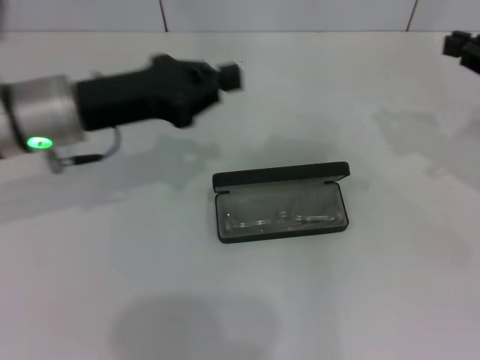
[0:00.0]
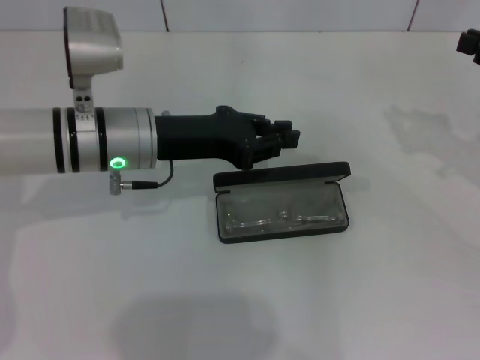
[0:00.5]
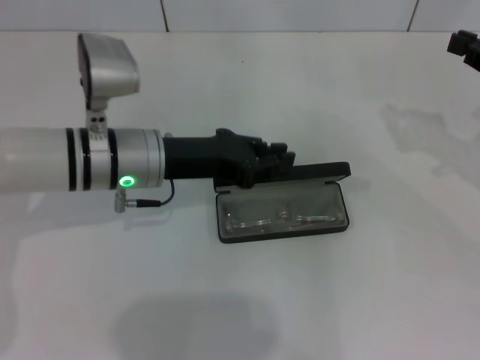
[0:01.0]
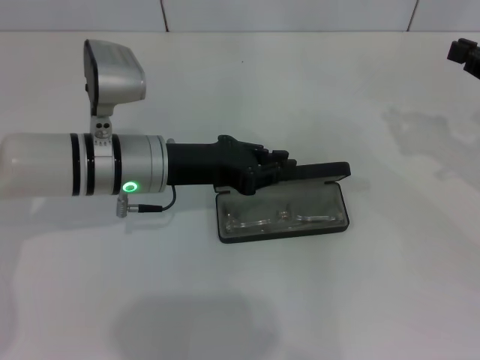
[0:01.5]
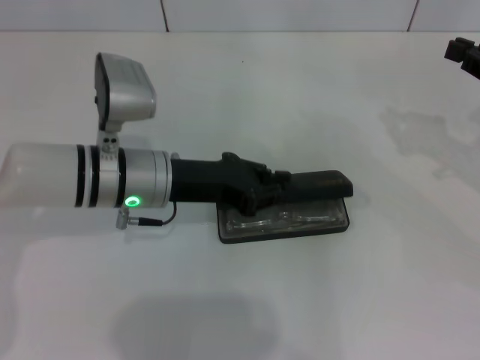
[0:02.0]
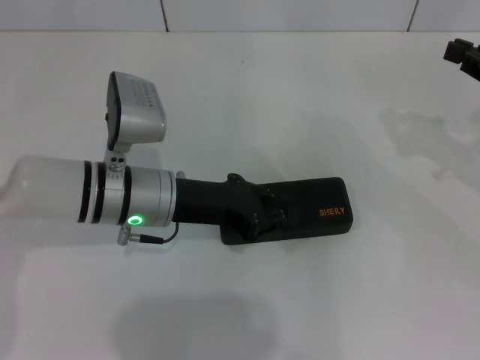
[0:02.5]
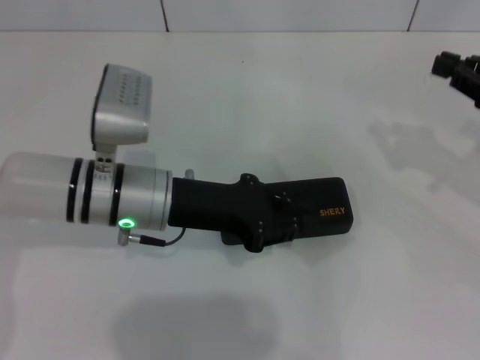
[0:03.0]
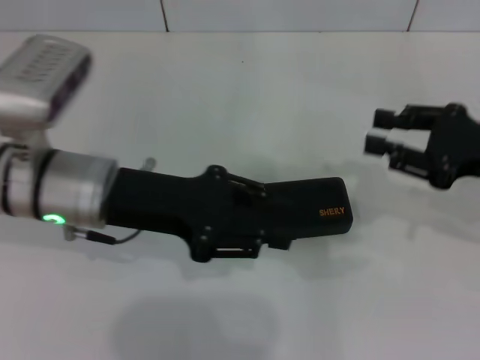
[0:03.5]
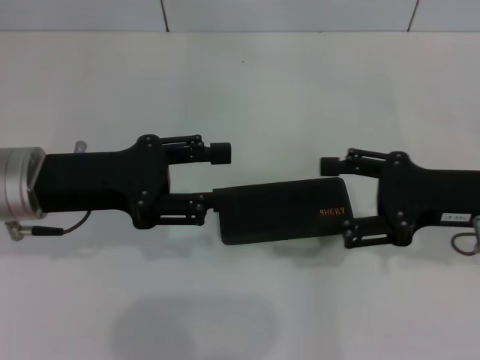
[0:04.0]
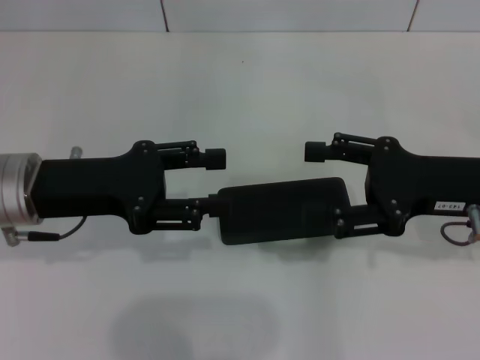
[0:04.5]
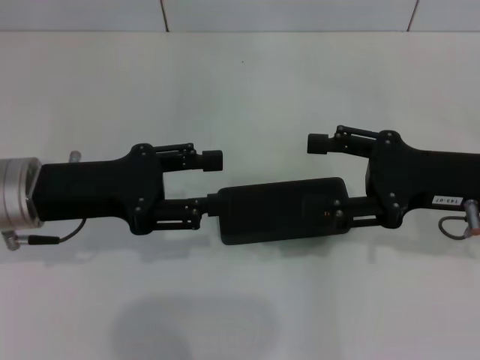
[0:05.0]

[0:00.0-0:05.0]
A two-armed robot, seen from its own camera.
Step, 0:00.0 to 0:03.0: Close the glasses case with your left hand.
0:00.0 to 0:02.5: The left gripper moves downward and to the right, roughly 10 cm.
0:02.5 to 0:05.0: The left gripper heads to the left and upward, covering approximately 10 cm, and opens its fingers, while the right gripper travels to the left by roughly 10 cm, and opens.

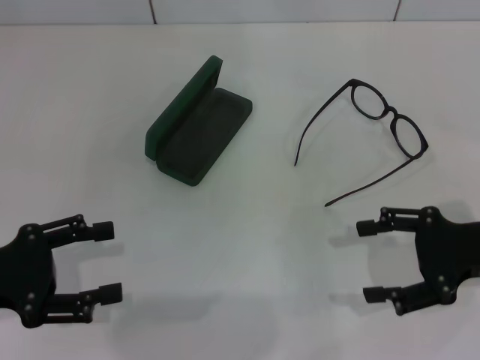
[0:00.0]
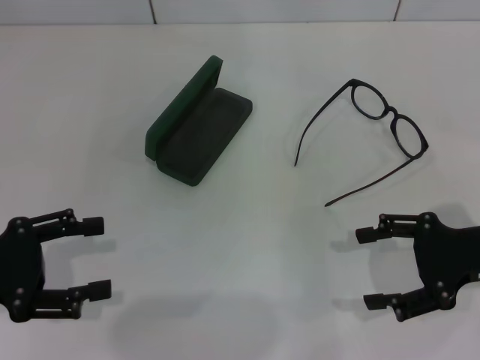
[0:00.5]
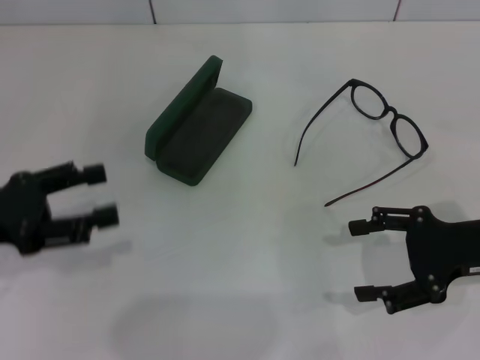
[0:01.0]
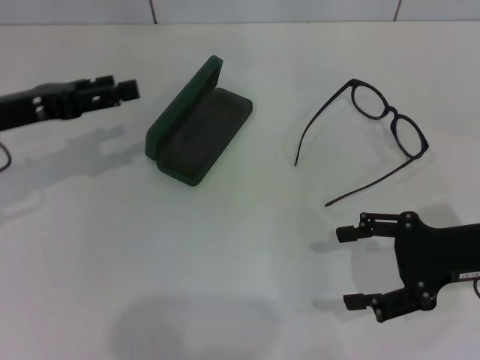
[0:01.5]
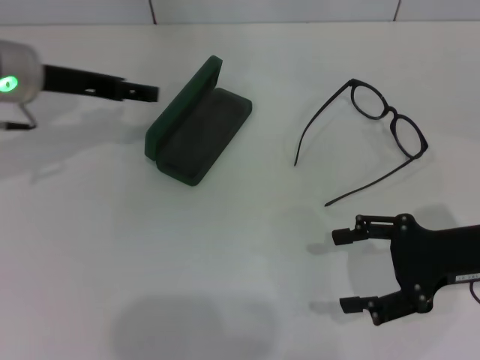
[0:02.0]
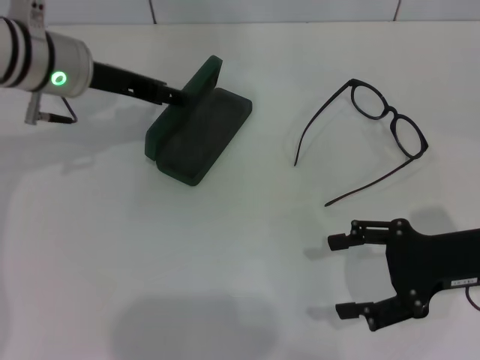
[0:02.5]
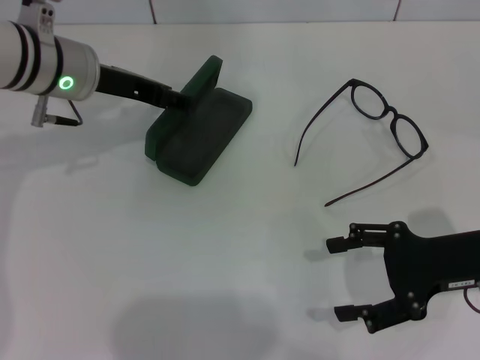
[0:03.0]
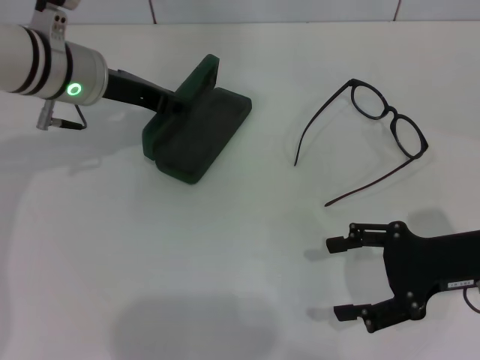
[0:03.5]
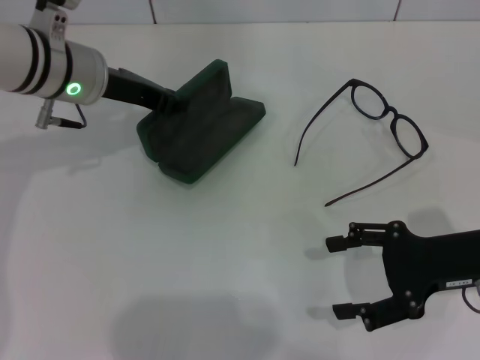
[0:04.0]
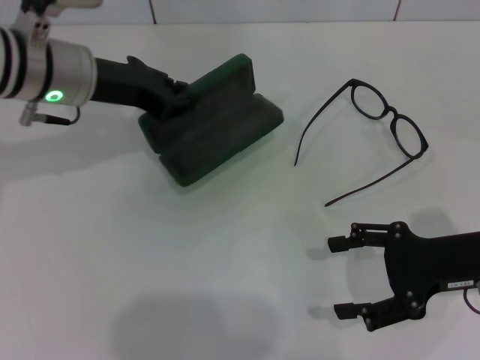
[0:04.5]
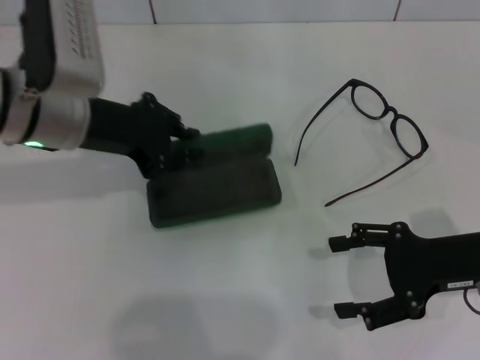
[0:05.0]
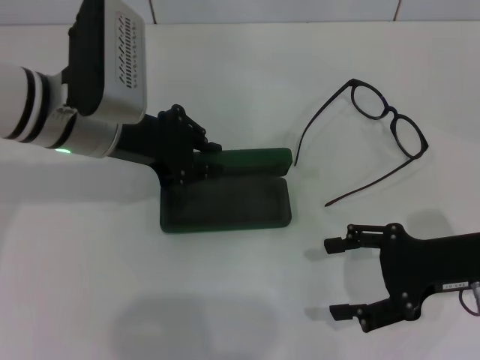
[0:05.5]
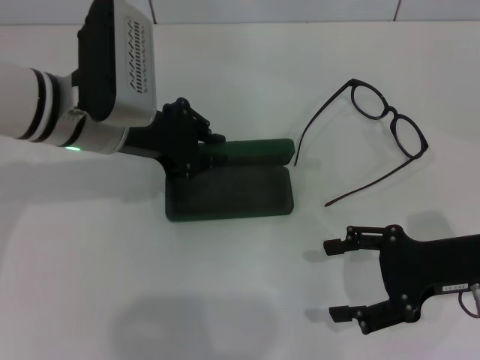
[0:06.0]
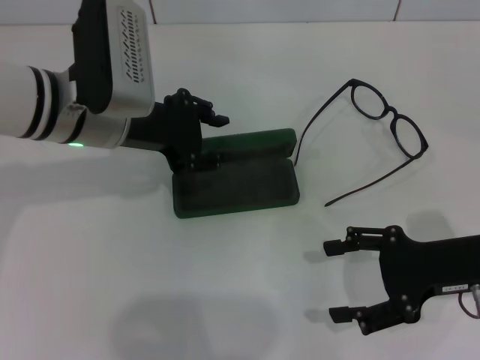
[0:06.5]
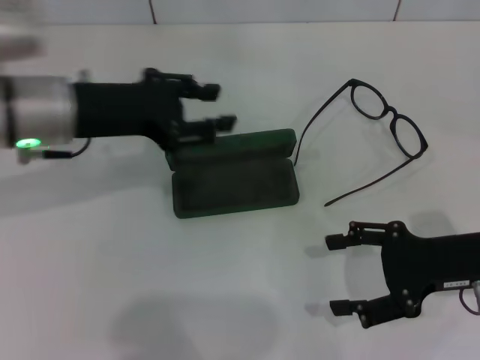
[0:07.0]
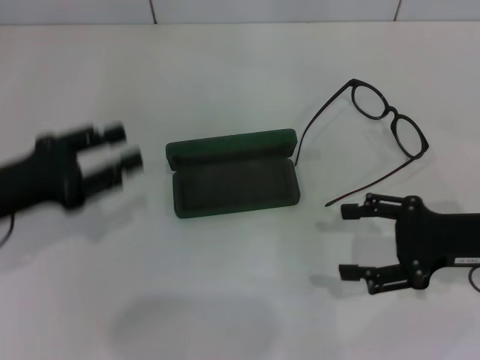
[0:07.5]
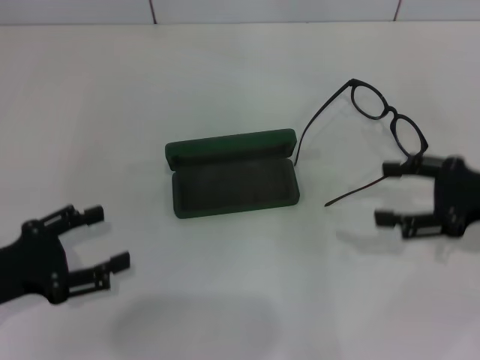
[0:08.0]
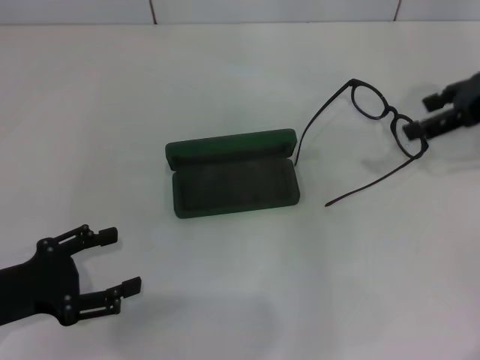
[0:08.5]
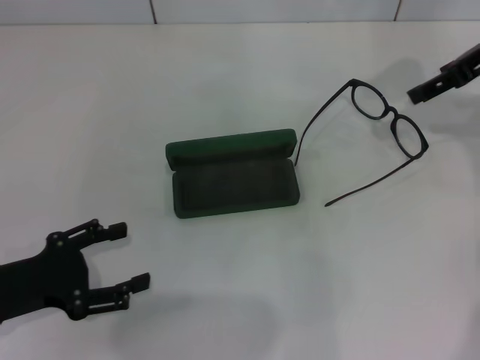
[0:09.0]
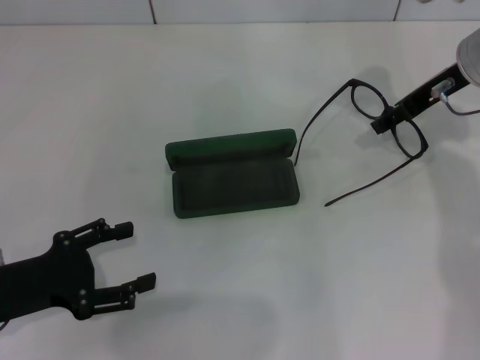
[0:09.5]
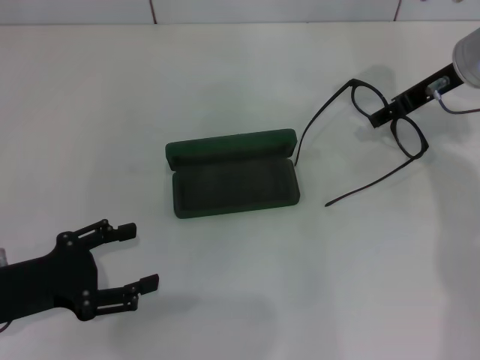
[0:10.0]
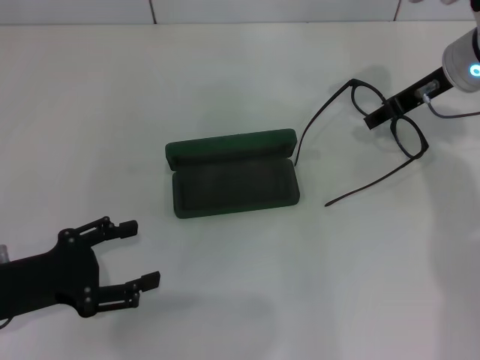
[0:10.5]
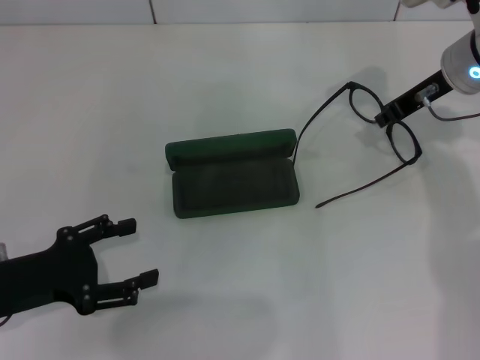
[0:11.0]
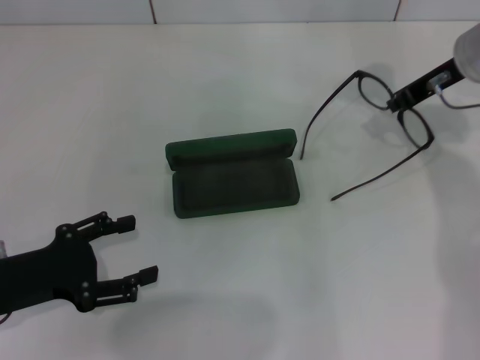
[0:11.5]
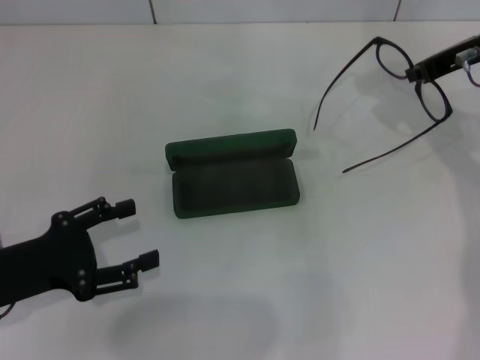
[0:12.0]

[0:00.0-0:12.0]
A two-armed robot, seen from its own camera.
Step, 0:00.0 to 0:03.5: Grab the glasses case with your left hand.
Step, 0:04.0 to 0:06.0: Place the glasses case in the center of the table with your left hand.
Step, 0:06.5 to 0:11.0: Grab the eyeglass frame with your right hand.
0:00.0 to 0:02.0: The left gripper is displaced forward and to the right by approximately 20 cm.
0:02.0 to 0:04.0: The left gripper is displaced to the right by approximately 5 cm, and closes up.
0:04.0 to 0:06.0: The left gripper shifts roughly 5 cm backward.
0:06.0 to 0:08.0: The left gripper is displaced backward, to the left and downward by roughly 25 cm, and opens. Meanwhile the right gripper moves roughly 5 cm.
0:08.0 to 0:10.0: The right gripper travels forward, to the left and upward by about 20 cm.
0:10.0 to 0:12.0: The right gripper closes.

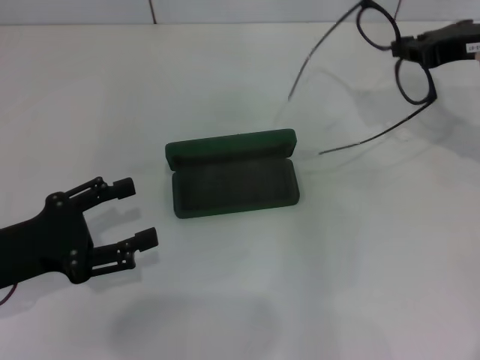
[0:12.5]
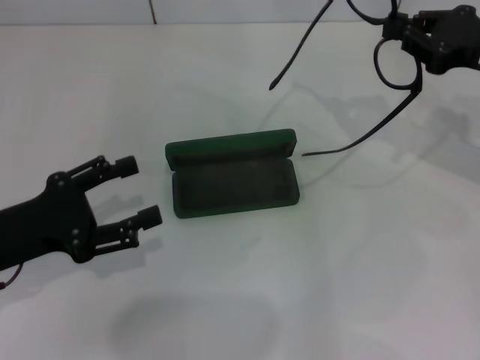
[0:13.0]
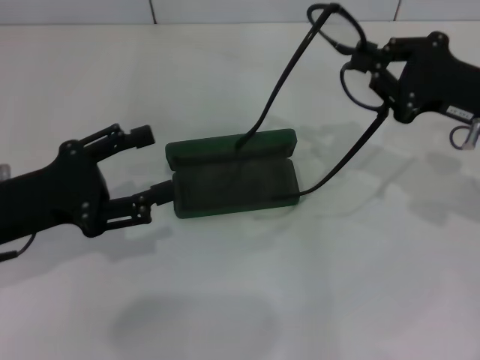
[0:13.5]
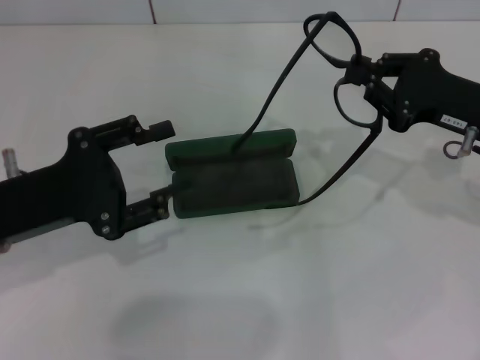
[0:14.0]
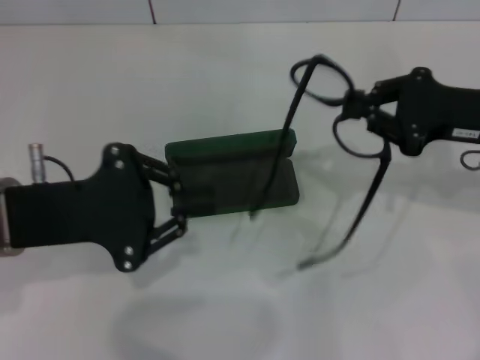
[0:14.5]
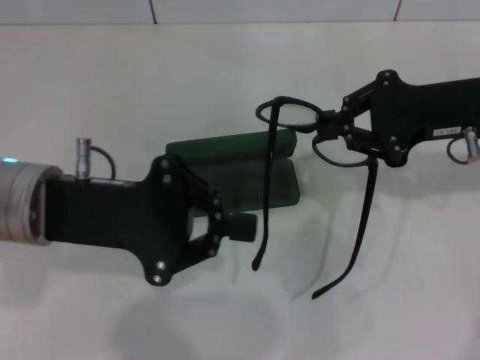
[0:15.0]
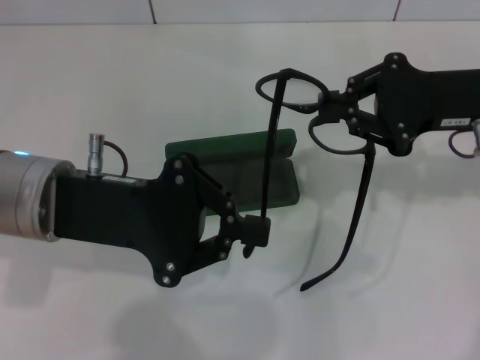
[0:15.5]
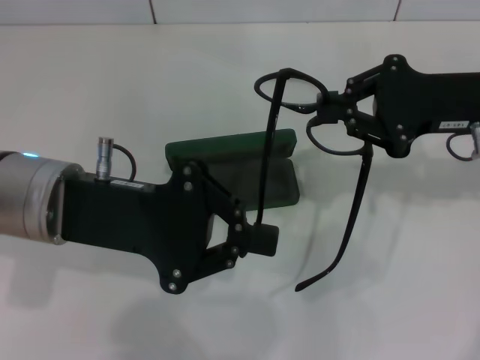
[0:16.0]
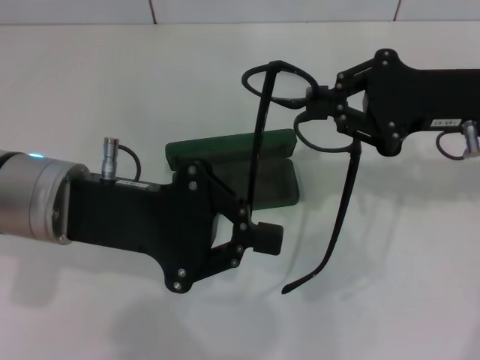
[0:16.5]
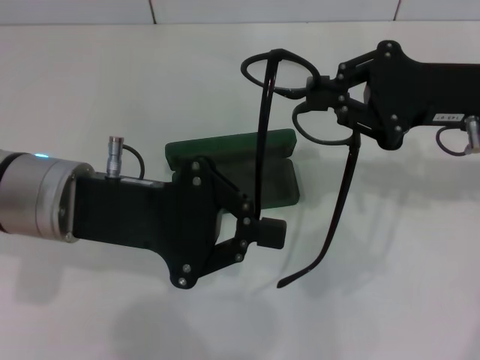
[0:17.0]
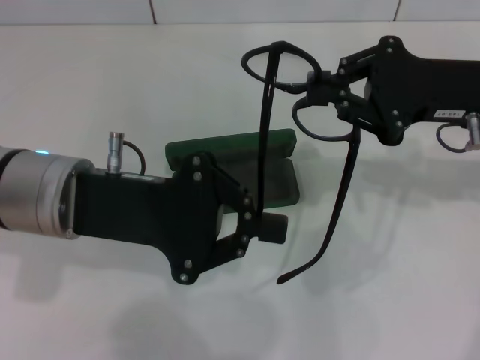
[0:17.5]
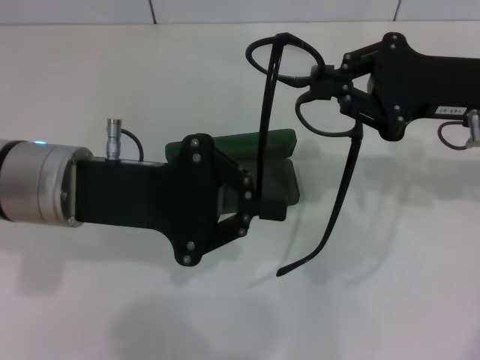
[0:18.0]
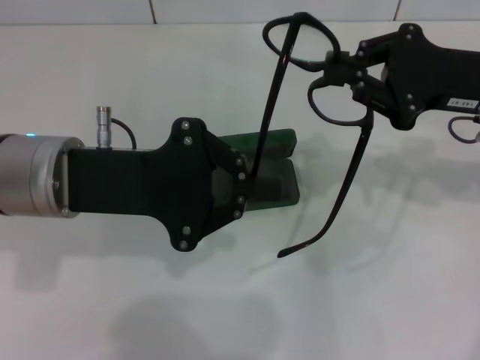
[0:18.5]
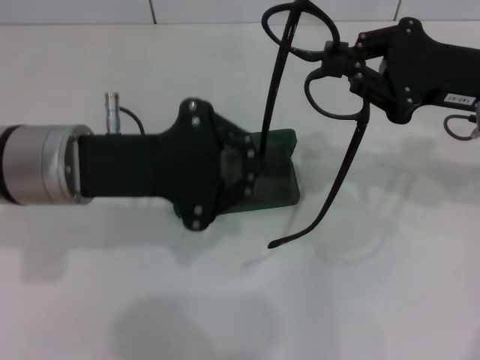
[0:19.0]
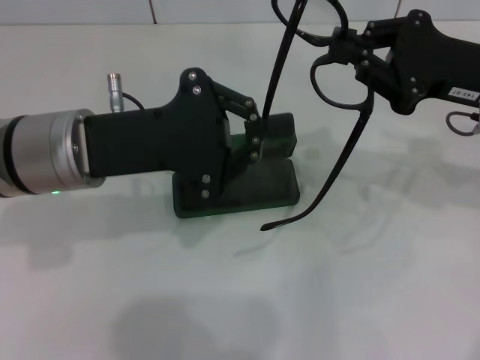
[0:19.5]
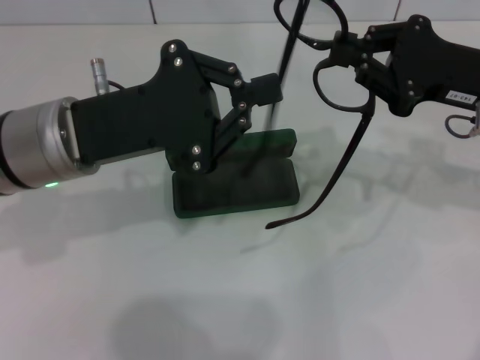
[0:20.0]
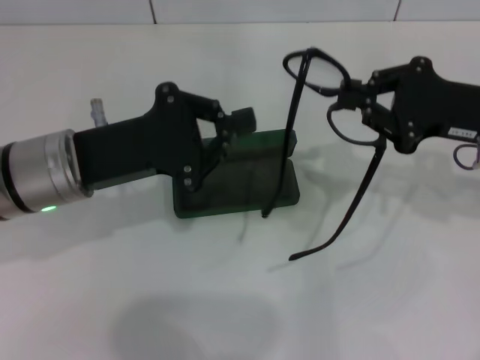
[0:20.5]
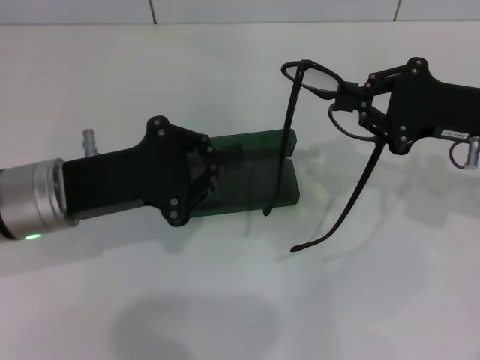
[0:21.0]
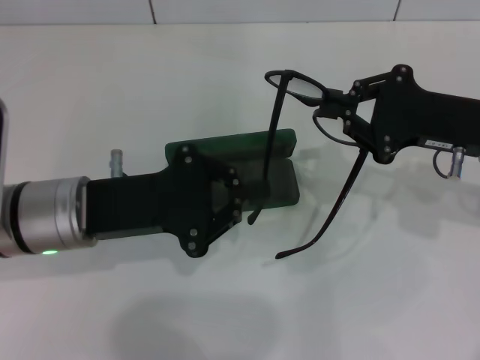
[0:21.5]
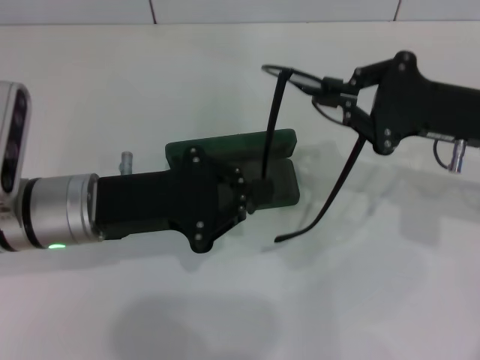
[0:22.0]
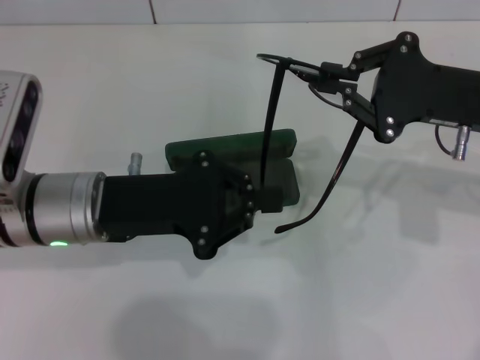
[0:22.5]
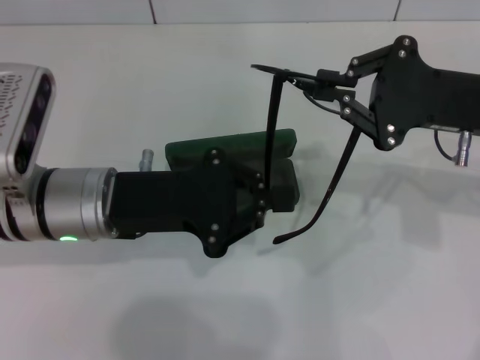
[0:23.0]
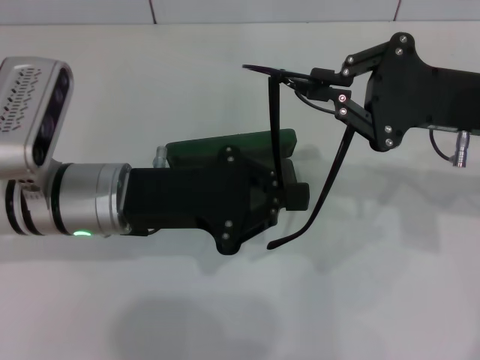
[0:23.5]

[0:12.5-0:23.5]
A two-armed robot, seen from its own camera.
0:12.5 to 0:14.5: The left gripper is displaced to the right and upward by about 10 cm, and closes. The right gripper heads backward, covering some 5 cm.
0:14.5 to 0:16.0: The left gripper moves some 5 cm, and closes.
0:16.0 to 0:18.0: The grippers move only a little.
0:20.0 to 0:21.5: The left gripper moves about 5 cm.
0:21.5 to 0:23.5: The grippers stay close to where they were, moving slightly.
